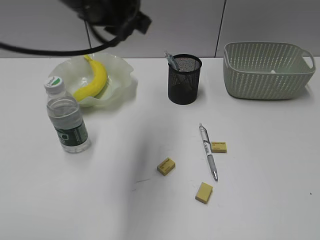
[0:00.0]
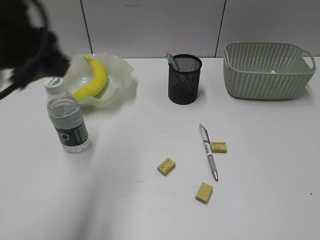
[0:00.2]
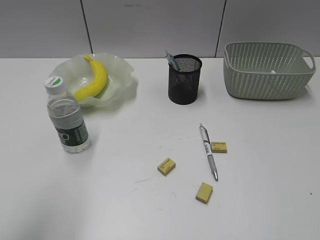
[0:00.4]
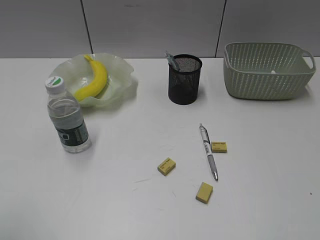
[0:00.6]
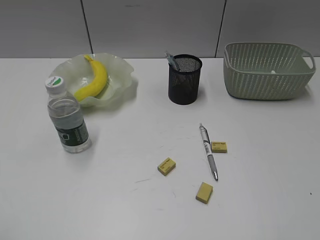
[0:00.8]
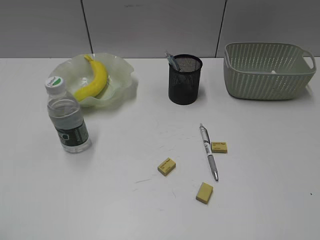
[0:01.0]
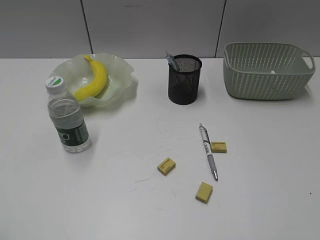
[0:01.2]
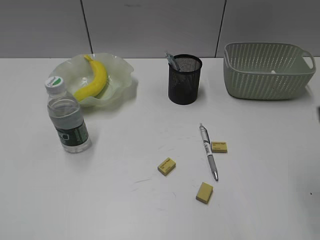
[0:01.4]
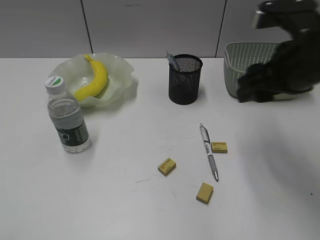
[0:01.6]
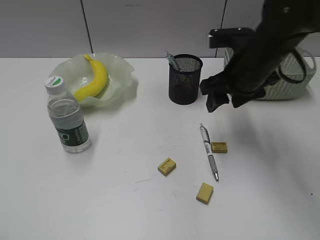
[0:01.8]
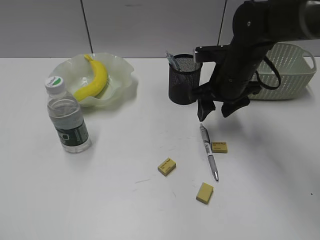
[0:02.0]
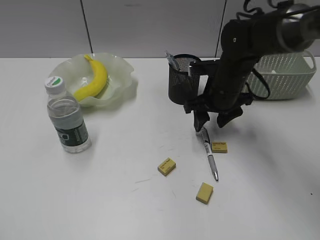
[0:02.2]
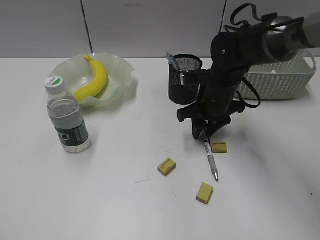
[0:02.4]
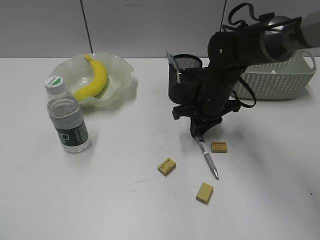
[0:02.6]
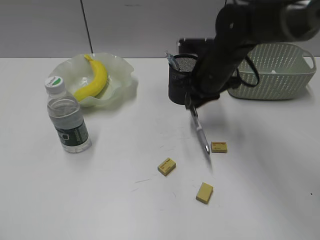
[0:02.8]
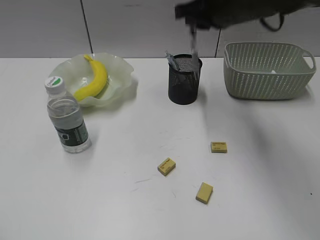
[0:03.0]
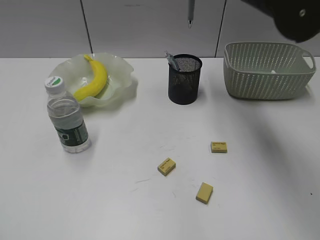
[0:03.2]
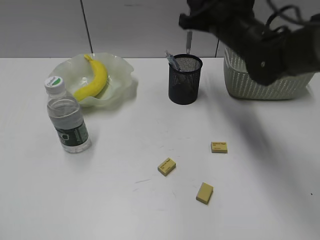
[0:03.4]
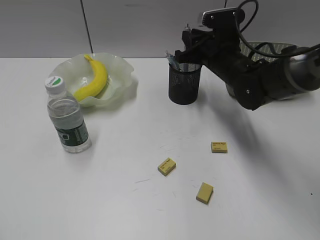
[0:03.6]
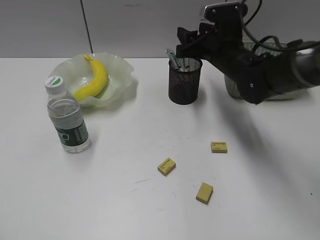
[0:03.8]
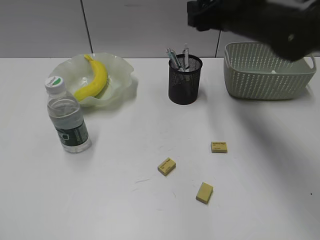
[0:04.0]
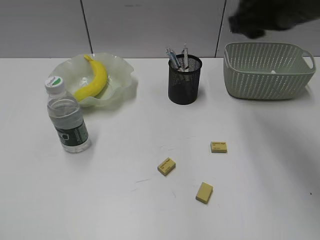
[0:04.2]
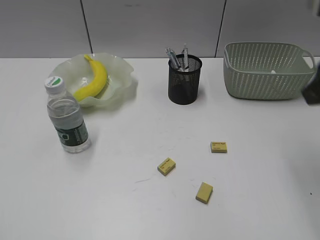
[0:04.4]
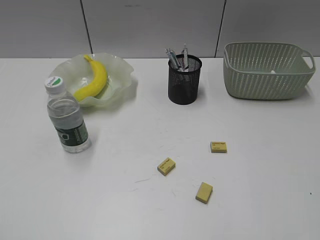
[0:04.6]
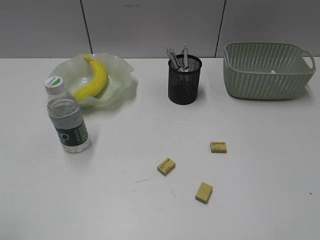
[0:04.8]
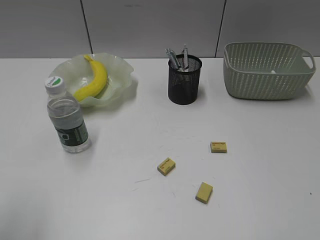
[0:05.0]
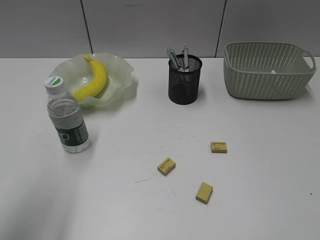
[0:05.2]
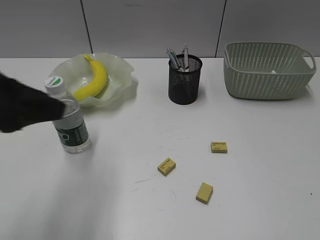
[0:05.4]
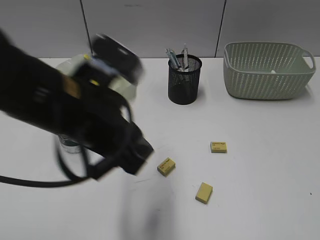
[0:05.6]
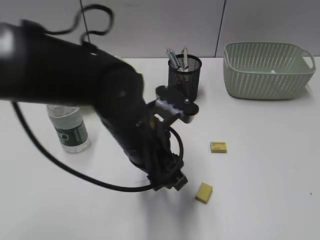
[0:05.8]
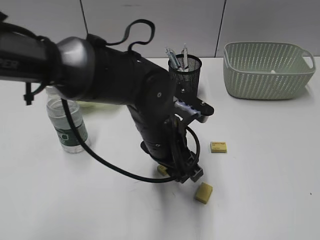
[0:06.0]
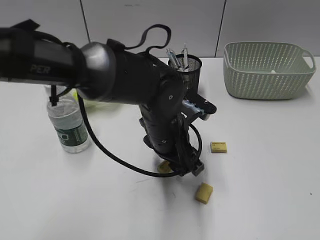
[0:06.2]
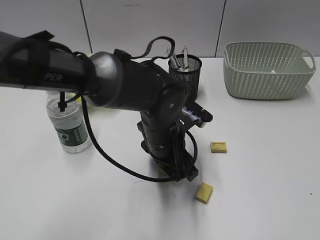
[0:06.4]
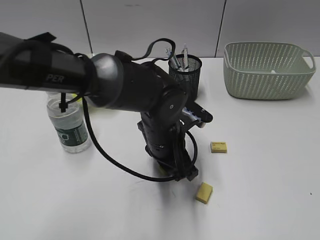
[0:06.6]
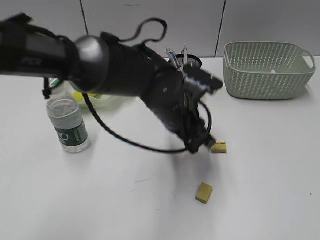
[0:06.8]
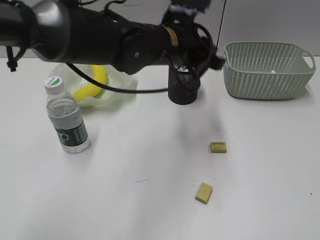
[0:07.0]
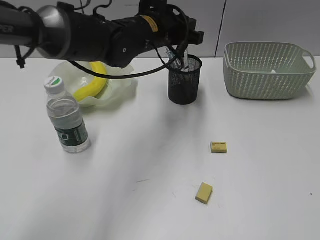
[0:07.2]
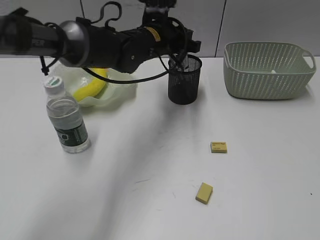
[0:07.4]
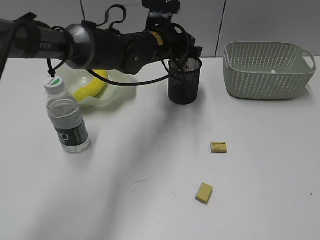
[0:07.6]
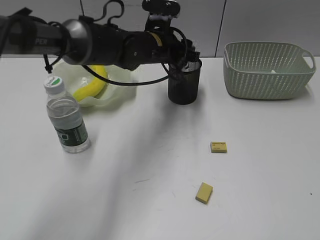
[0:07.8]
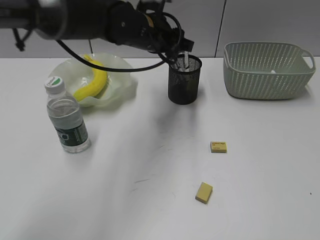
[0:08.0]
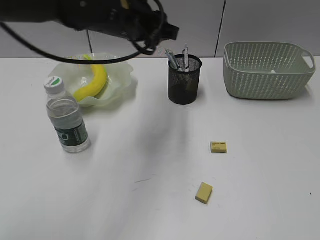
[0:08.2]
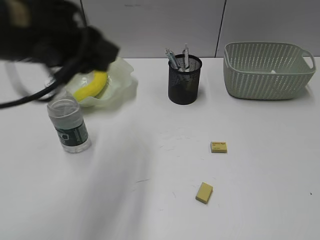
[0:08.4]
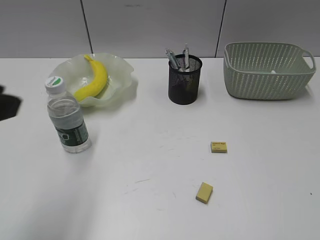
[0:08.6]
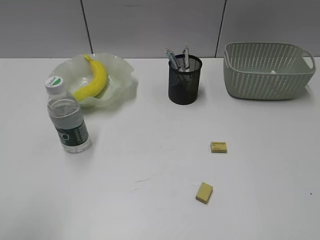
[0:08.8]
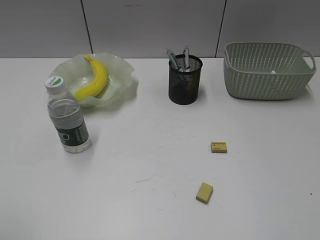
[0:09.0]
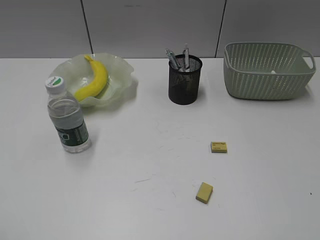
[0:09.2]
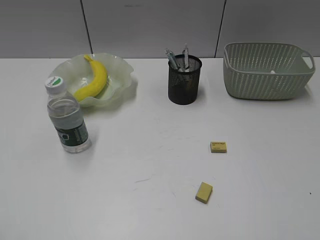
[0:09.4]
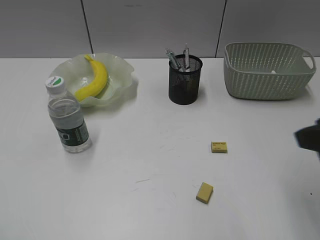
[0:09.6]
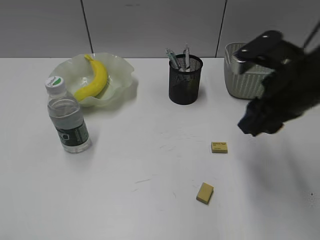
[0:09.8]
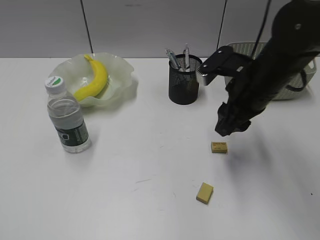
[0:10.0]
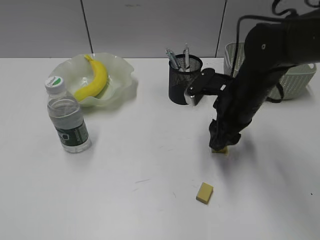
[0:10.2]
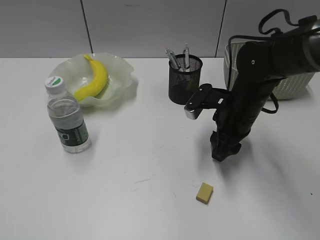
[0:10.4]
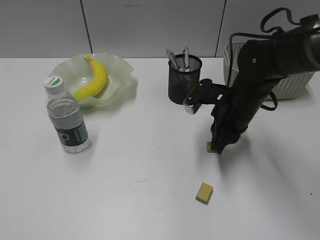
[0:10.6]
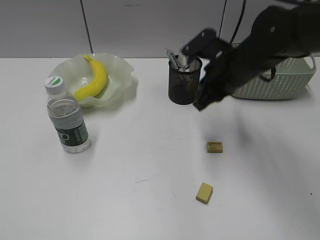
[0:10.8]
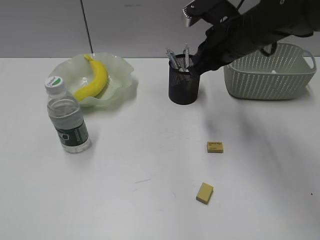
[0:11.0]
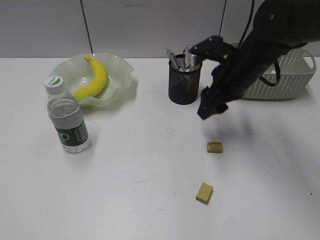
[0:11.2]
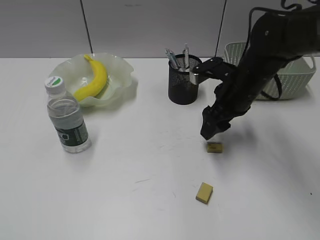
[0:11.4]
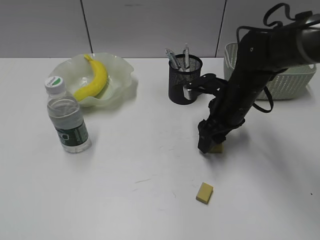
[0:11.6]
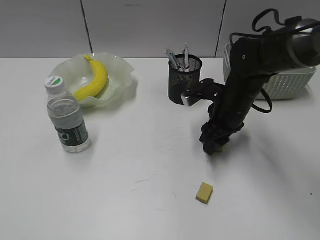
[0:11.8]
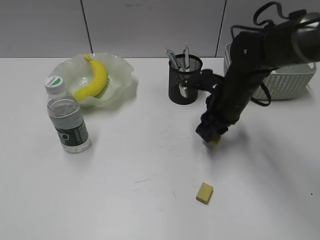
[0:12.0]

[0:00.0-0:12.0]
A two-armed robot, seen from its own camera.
Step, 0:00.0 to 0:02.4: Grasp the gray pen with right gripper.
Step, 0:02.6 to 0:03.8: Place the gray pen in pen holder with right gripper.
Step, 0:04.0 to 0:06.6: Grasp the eraser with left gripper.
Step, 0:06.8 to 0:07.8: Place the eraser in pen holder with left gripper.
Step, 0:08.0 to 0:11.8: Grasp the eraser with right gripper.
0:00.0 to 0:01.6: The left gripper is displaced backward and to the left by about 40 cm, and opens its fingers. The right gripper heads forward and to the left, covering some 30 cm, and opens up.
0:01.6 to 0:03.0: The right gripper moves forward and to the left, about 10 cm, moves some 15 cm downward and comes back, and closes its fingers.
0:03.0 to 0:04.4: The right gripper shifts some 20 cm backward and to the right, and opens.
0:04.4 to 0:06.0: The right gripper heads backward, covering roughly 20 cm; the left gripper moves to the right, forward and downward, some 40 cm.
0:06.0 to 0:07.6: The left gripper is displaced forward by about 20 cm.
0:07.6 to 0:09.0: The left gripper shifts some 50 cm backward and to the left.
0:09.0 to 0:10.4: The right gripper goes some 40 cm forward, to the left and downward.
0:10.4 to 0:12.0: The right gripper reaches about 10 cm upward, then returns, and closes, then opens again.

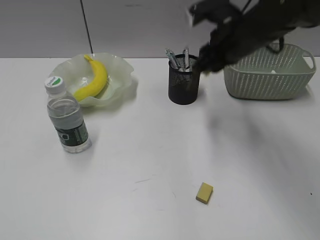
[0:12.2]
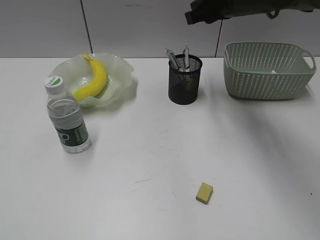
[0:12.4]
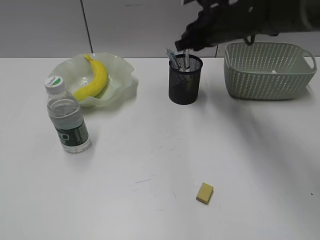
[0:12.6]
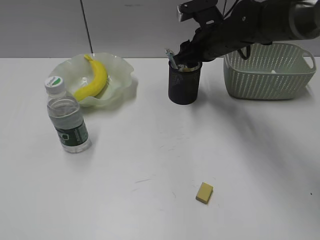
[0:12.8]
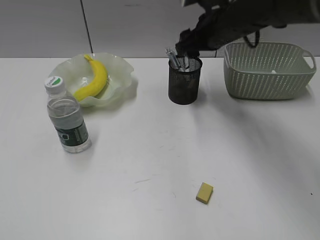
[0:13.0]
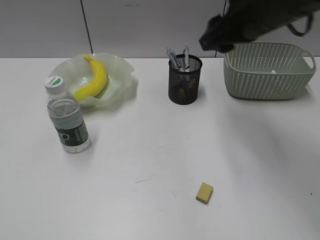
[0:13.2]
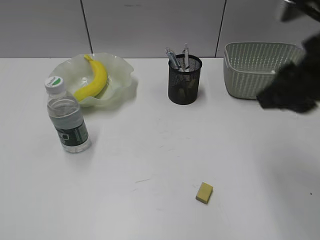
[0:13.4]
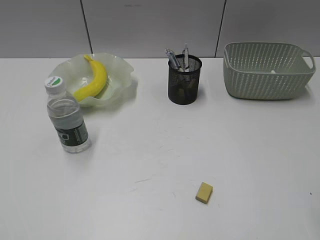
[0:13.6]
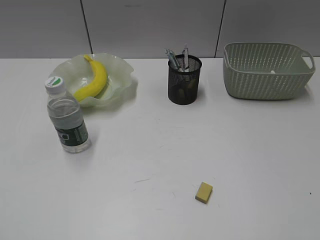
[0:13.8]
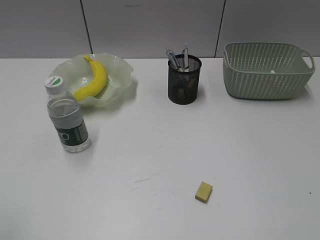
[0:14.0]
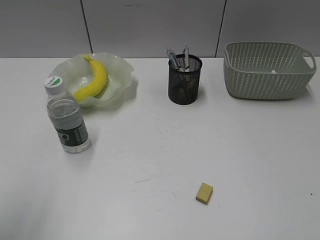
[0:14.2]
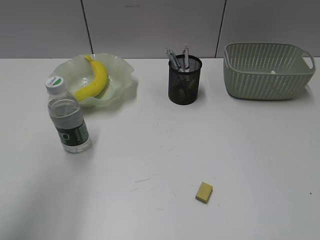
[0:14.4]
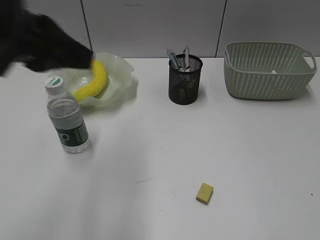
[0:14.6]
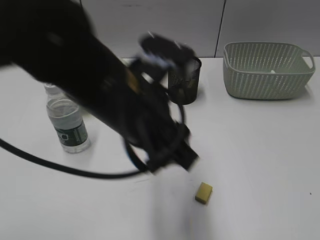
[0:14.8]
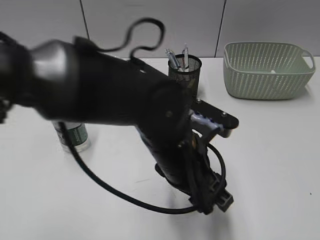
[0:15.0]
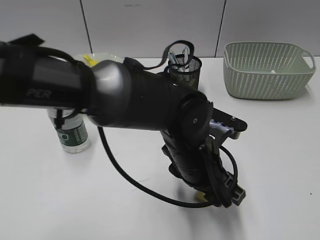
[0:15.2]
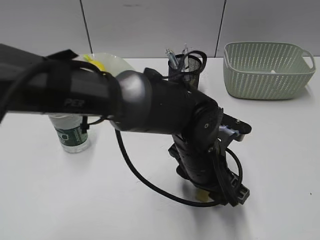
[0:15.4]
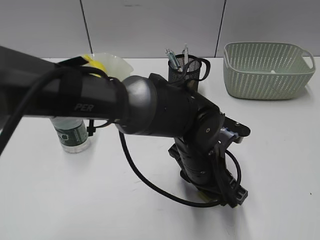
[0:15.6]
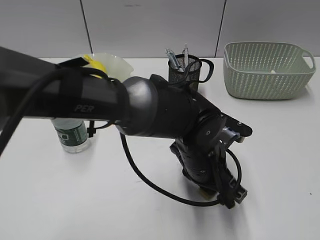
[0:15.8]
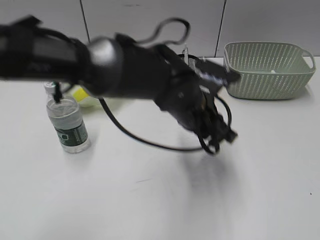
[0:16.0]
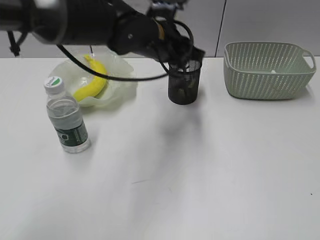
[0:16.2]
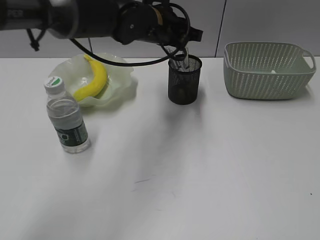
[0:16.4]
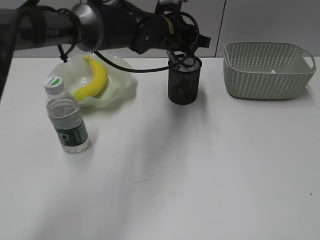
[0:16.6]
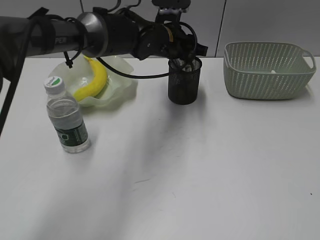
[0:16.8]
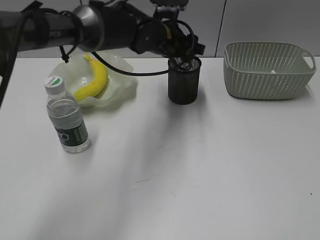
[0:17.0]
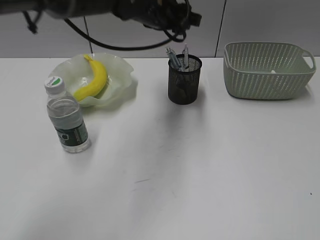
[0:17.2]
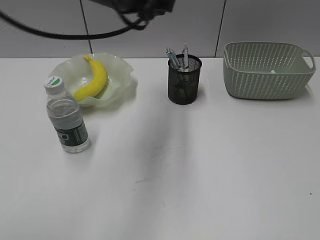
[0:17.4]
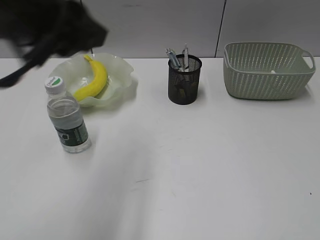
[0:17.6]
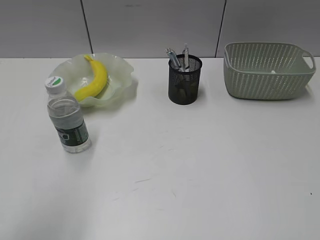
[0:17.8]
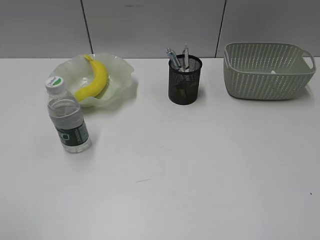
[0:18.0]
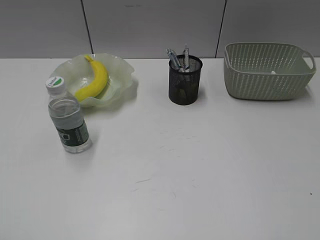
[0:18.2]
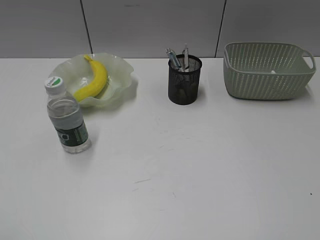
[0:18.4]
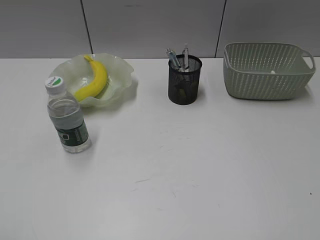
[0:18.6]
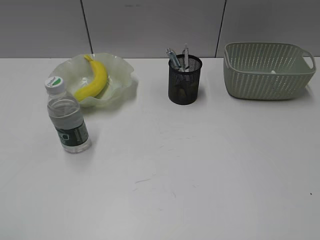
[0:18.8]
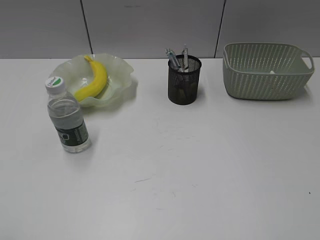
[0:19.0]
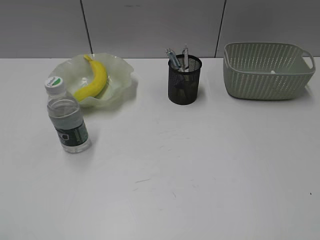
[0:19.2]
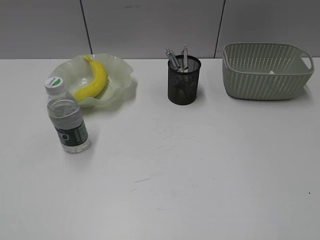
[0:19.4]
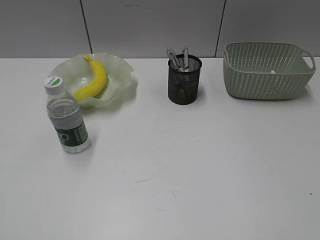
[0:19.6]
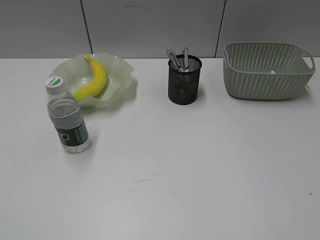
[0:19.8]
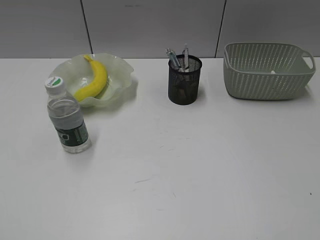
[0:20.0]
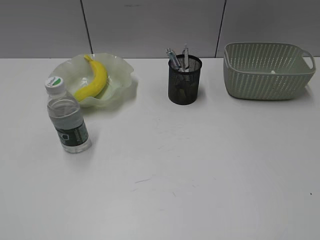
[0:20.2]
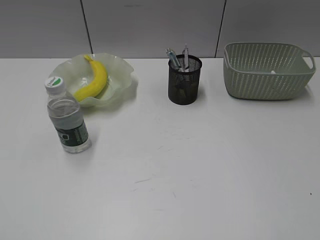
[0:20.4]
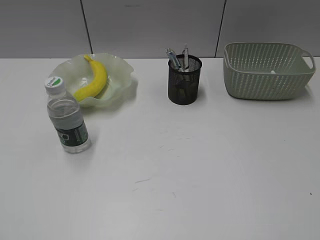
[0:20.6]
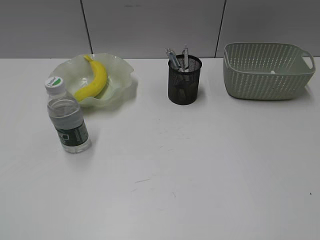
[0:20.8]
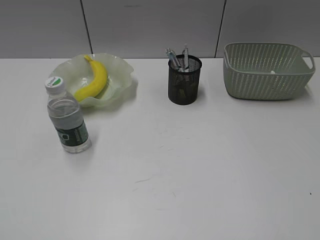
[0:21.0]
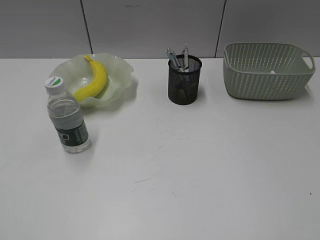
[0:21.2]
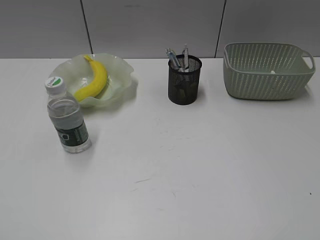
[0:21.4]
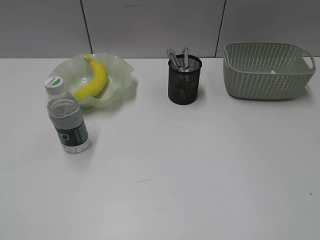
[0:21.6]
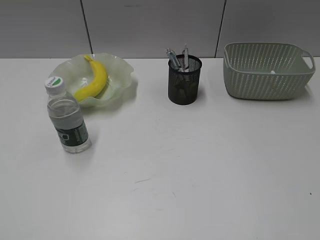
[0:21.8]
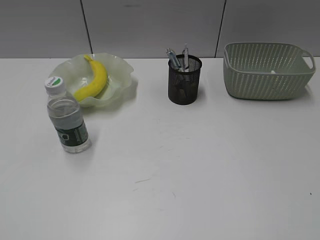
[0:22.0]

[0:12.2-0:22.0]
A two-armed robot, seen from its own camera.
Step, 0:12.2 to 0:12.8: Place the eraser in pen holder with right gripper.
Step, 0:13.0 to 0:15.8: Grasp the eraser with left gripper.
Step, 0:16.0 to 0:17.0: Place the eraser in pen holder with left gripper.
0:12.2 to 0:13.6: The right gripper moves backward and to the right, about 30 cm, and opens, then closes once more.
0:13.6 to 0:15.0: The right gripper moves backward, some 10 cm, while the left gripper shifts some 40 cm to the right and forward, and opens.
0:15.0 to 0:16.4: The left gripper travels forward by roughly 20 cm, and closes its fingers.
0:16.4 to 0:17.8: The left gripper heads backward and to the left, covering some 40 cm.
0:20.6 to 0:22.0: The two grippers keep their place.
